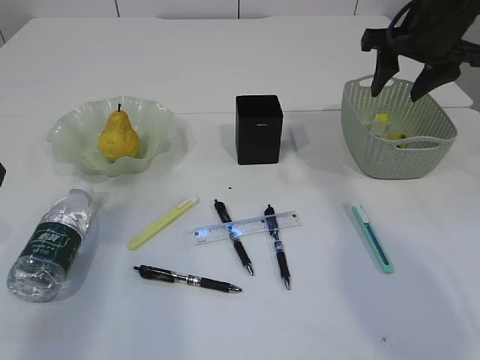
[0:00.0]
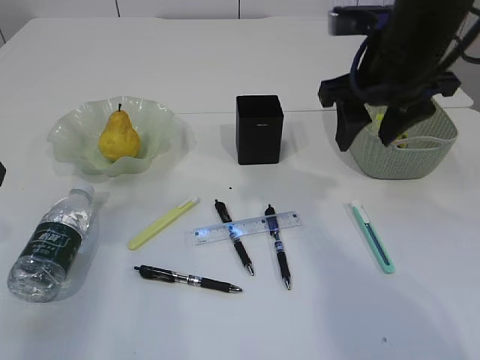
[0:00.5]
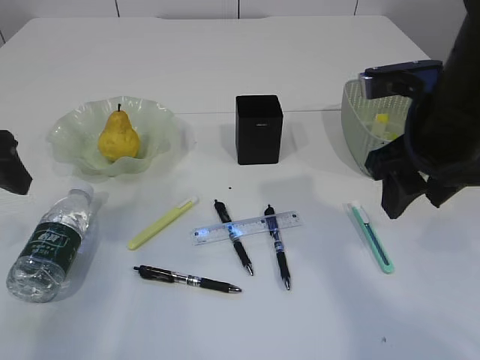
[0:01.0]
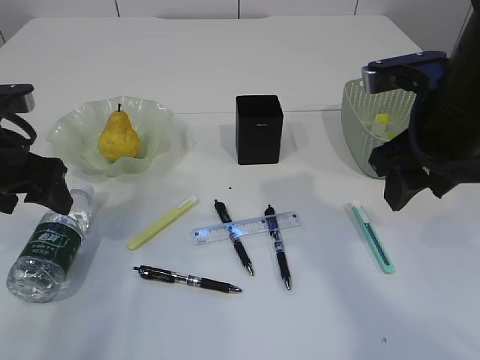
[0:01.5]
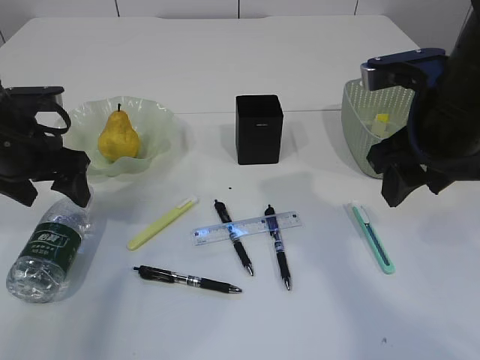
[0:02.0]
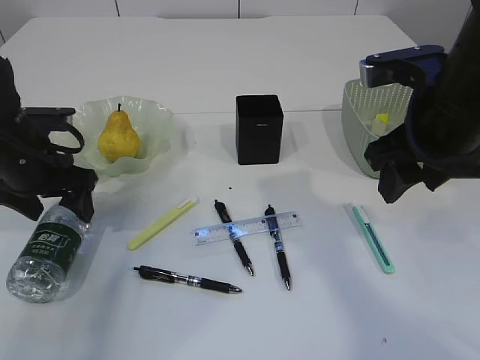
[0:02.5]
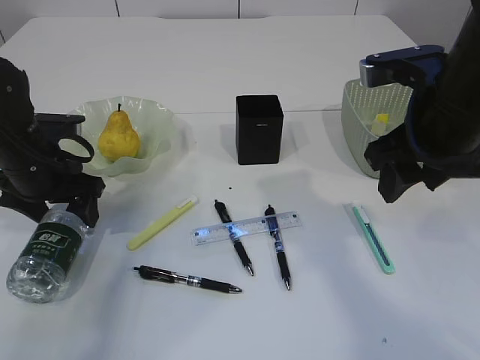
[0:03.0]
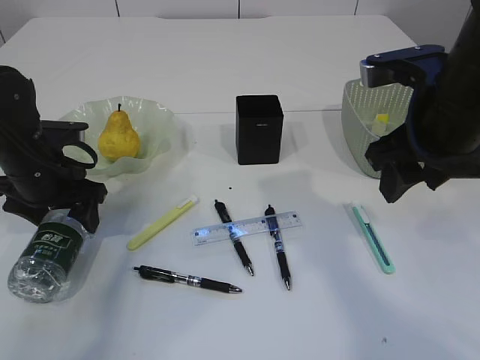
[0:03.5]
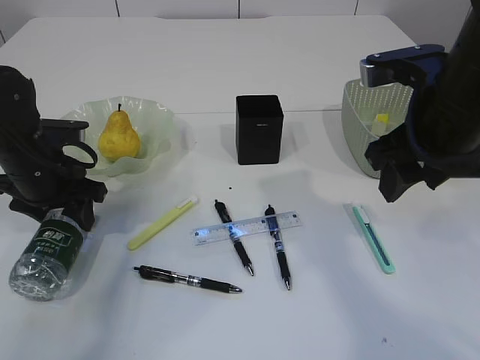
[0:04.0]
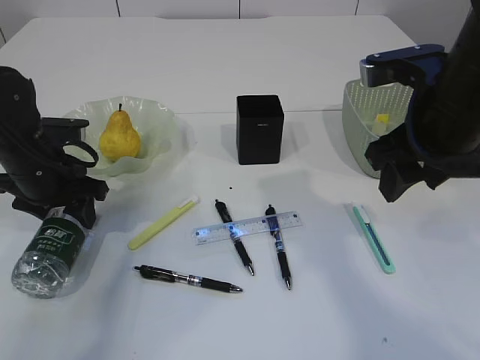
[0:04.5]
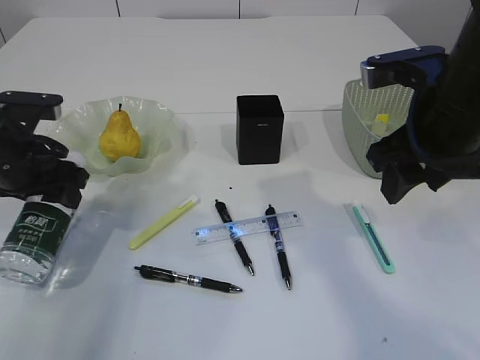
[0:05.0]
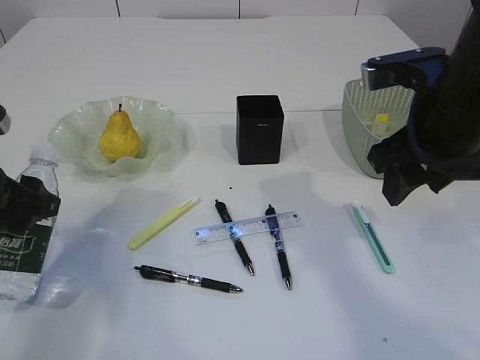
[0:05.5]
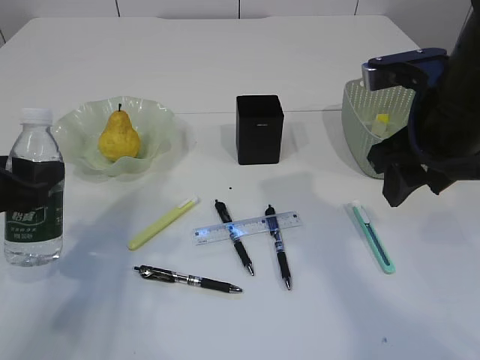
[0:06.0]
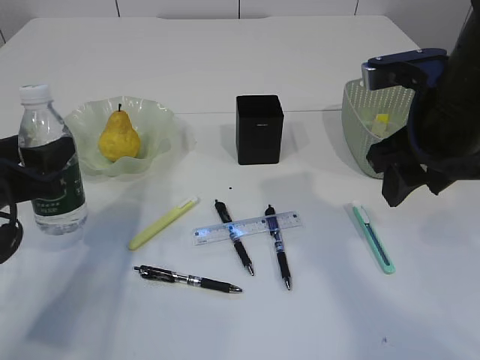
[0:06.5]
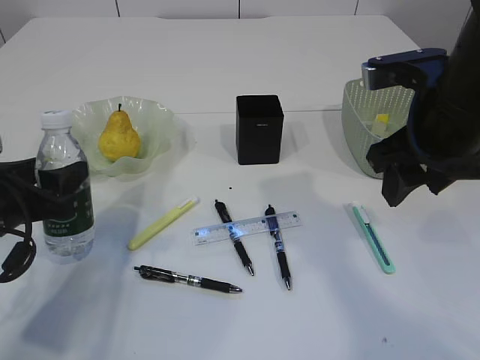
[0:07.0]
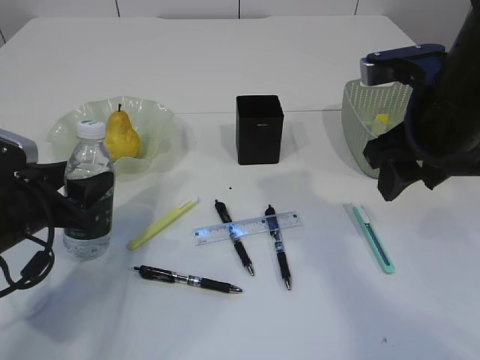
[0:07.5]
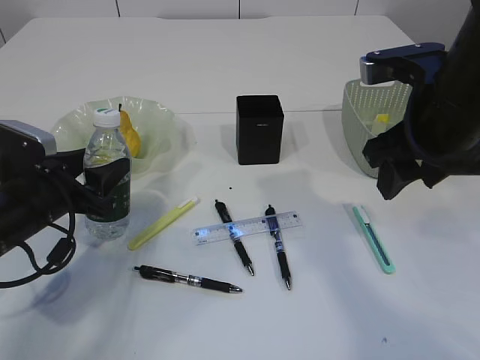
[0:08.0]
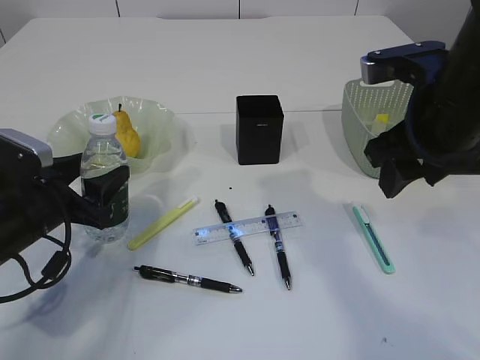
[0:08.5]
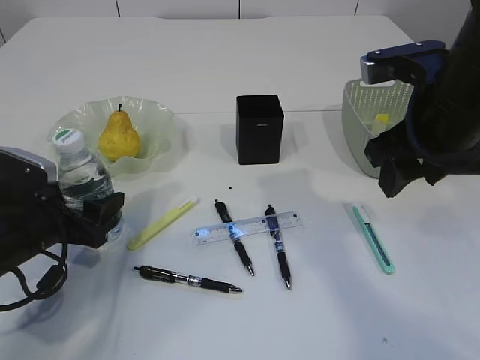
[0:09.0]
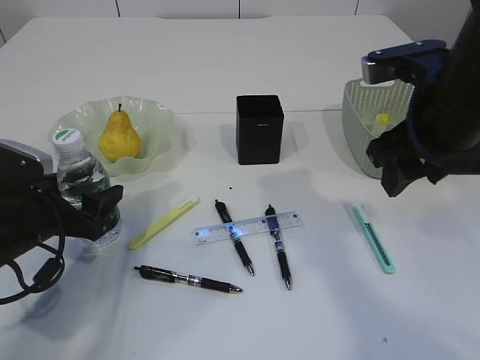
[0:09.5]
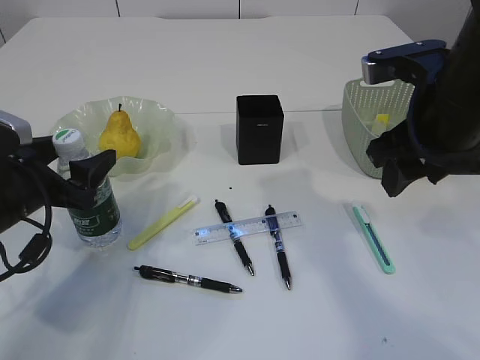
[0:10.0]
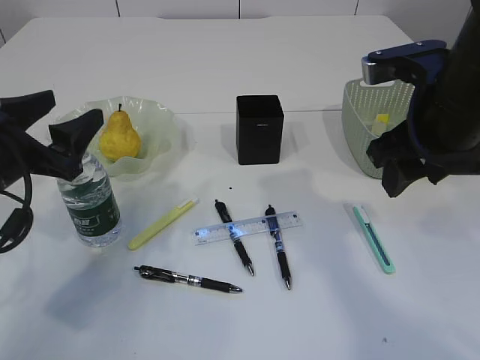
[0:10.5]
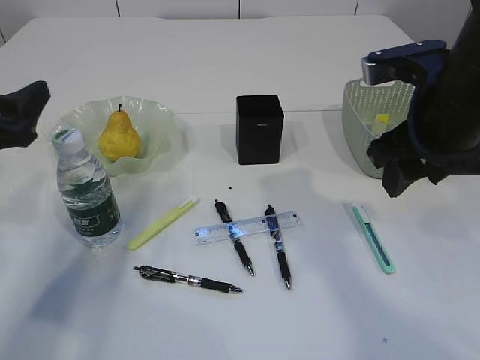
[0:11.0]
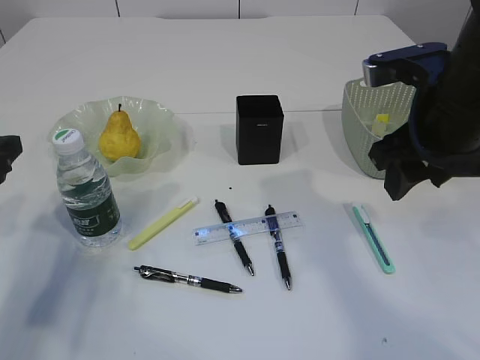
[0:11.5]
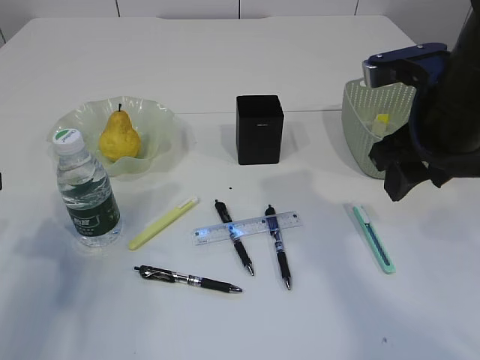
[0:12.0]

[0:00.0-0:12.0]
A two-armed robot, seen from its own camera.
Step, 0:00.0 to 0:05.0: Pick up the bottle with the left arm.
Step, 0:05.5 to 0:10.5: Place the bottle.
0:00.0 to 0:02.0: The left gripper travels forward and downward by roughly 15 cm. Meanwhile the right gripper heads backward, covering about 15 cm.
0:02.0 to 0:04.0: The left gripper heads downward, covering approximately 5 cm, and closes up.
0:04.0 to 0:06.0: The left gripper is displaced backward and upward by roughly 15 cm.
0:06.0 to 0:08.0: The left gripper heads downward and forward, covering approximately 10 cm.
0:08.0 to 0:10.0: The grippers stay close to where they were, moving slightly.
0:10.0 to 0:12.0: The left gripper is displaced upward and to the left by about 10 cm.

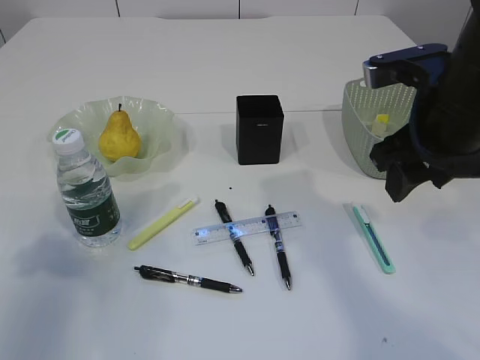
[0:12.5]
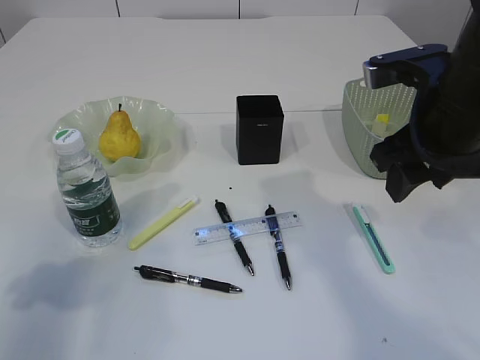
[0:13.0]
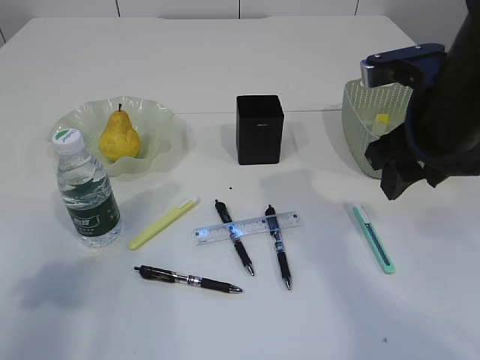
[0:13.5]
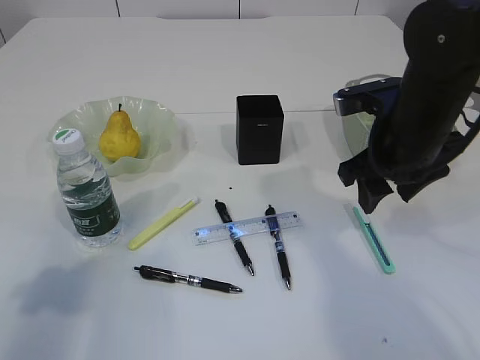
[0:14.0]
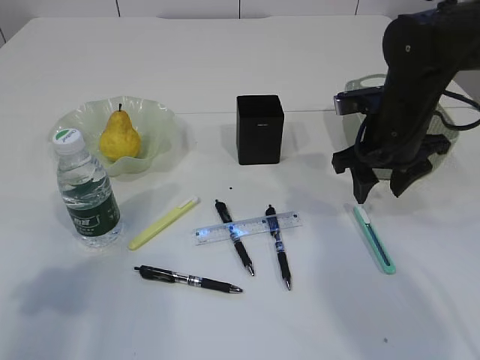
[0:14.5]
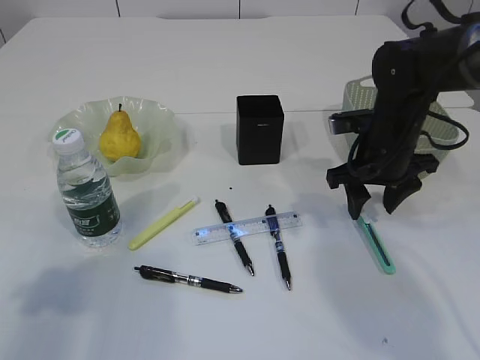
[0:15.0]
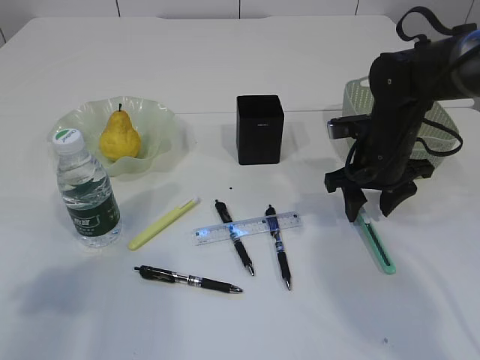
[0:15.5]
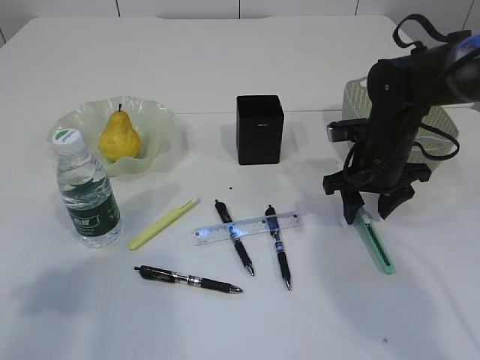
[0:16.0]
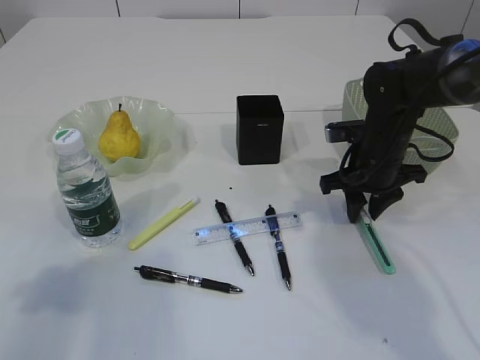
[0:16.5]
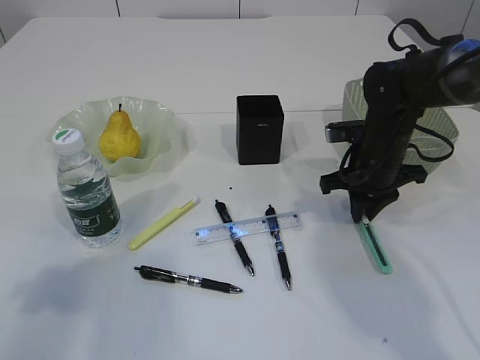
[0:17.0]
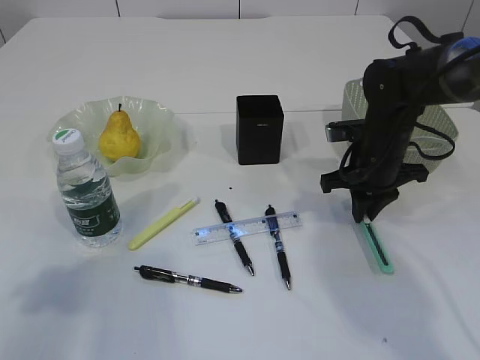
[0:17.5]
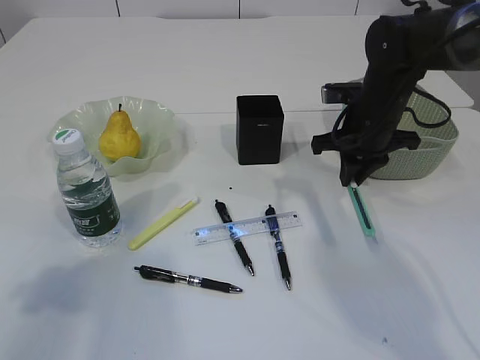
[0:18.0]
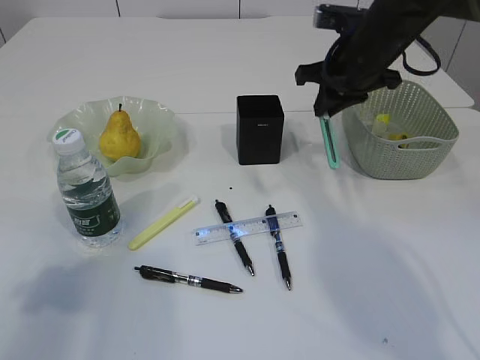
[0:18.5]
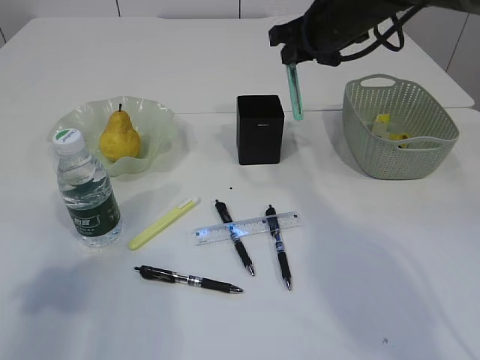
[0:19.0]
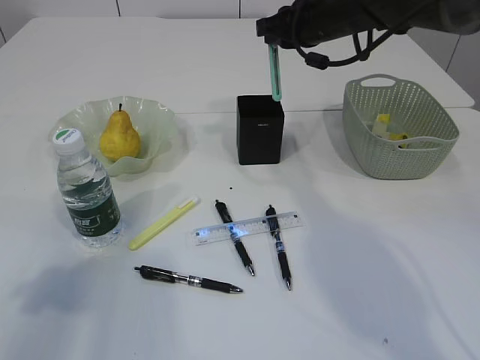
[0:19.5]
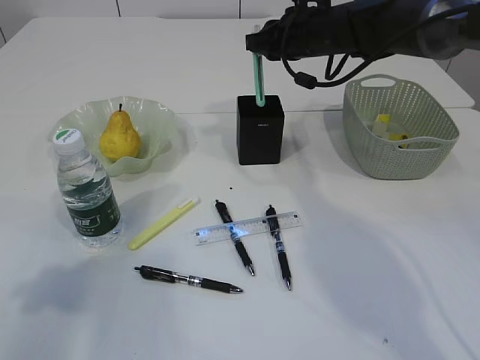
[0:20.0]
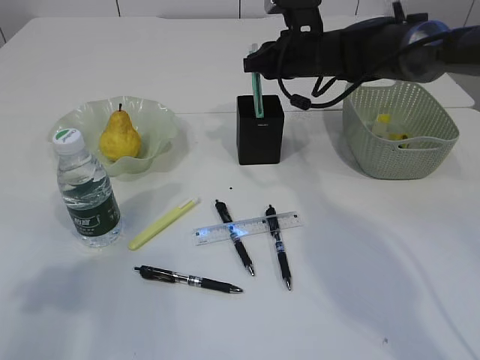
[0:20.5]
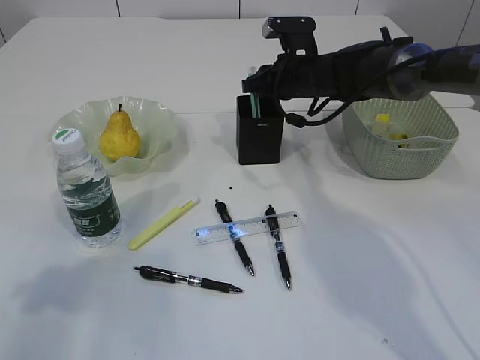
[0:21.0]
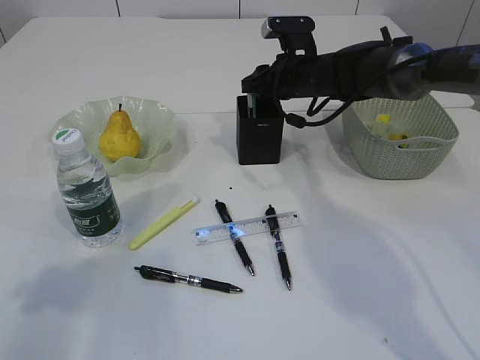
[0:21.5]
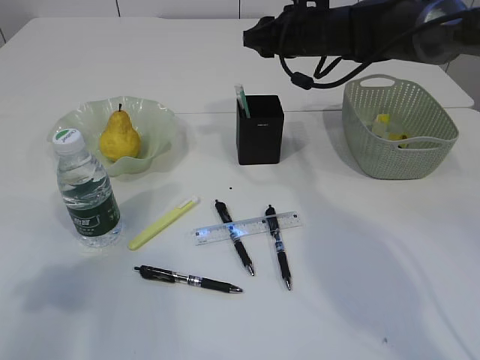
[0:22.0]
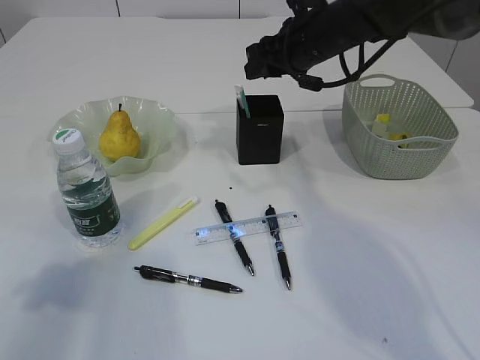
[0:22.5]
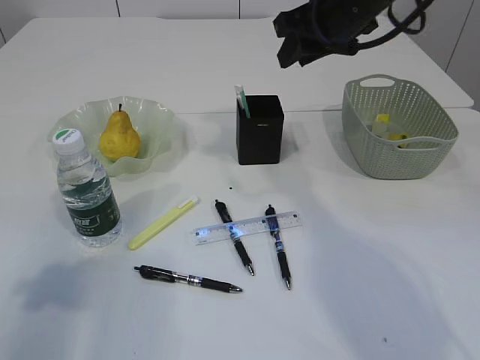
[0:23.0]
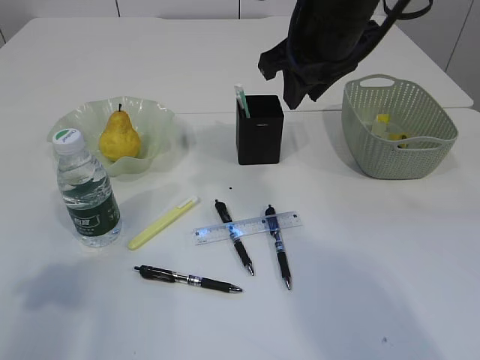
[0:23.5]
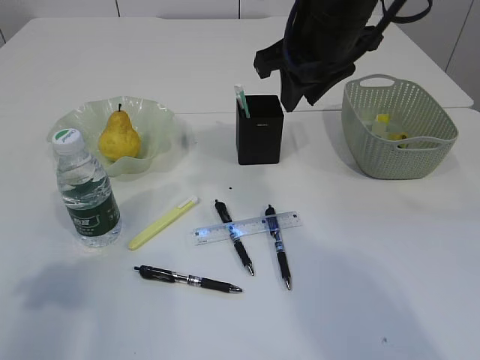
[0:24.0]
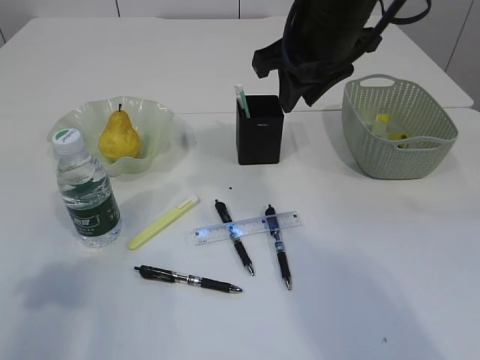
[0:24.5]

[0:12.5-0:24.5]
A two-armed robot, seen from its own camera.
Step, 0:12.5 to 0:17.5: pick up the blue knife.
Step, 0:18.0 to 0:21.5: Place the blue knife into the pen holder.
0:12.5 to 0:14.5: The right gripper heads forward and downward, covering about 10 cm.
0:14.5 to 0:16.5: The right gripper moves downward, roughly 5 cm.
0:16.5 to 0:18.5: The right gripper heads upward, covering some 10 cm.
0:18.5 to 0:20.5: The right gripper heads forward and to the left, covering approximately 10 cm.
0:20.5 to 0:22.5: The right gripper shifts by approximately 5 cm.
0:22.5 to 0:24.5: The right gripper travels backward and upward by approximately 10 cm.

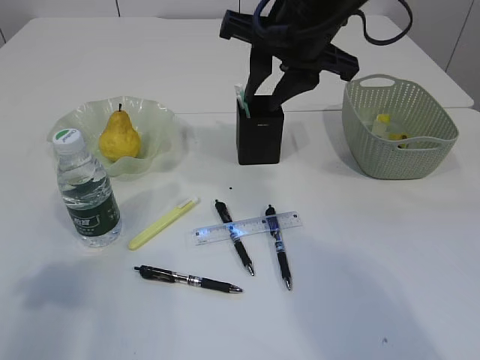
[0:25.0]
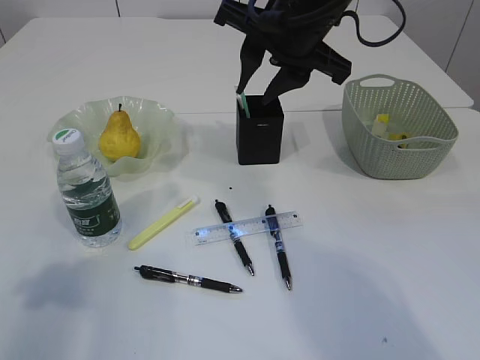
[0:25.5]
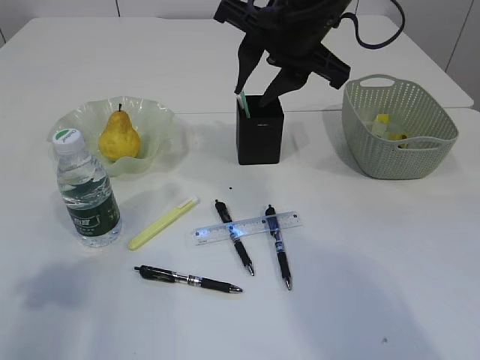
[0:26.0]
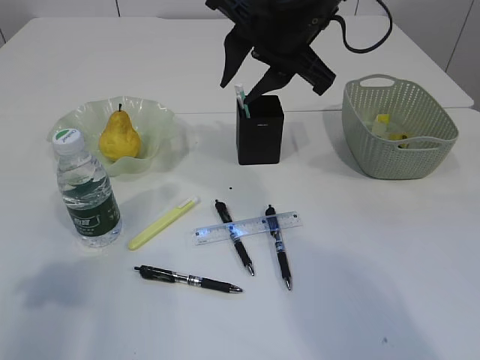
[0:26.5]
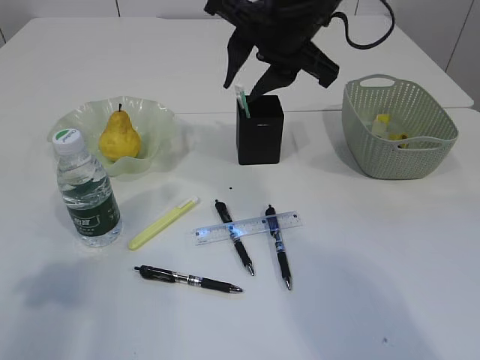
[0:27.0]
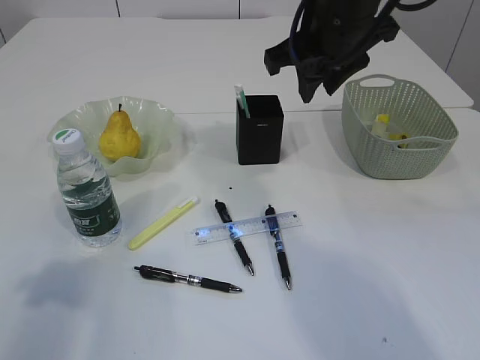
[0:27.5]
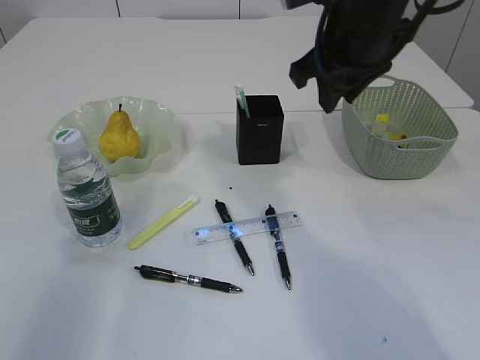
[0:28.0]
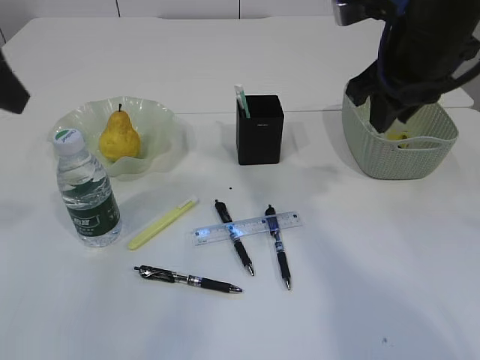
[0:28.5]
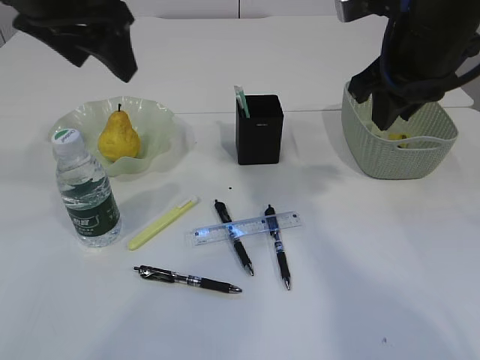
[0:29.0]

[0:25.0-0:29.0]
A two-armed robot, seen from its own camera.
0:27.0 to 0:29.0: The left gripper moves forward, to the right and upward, approximately 25 cm. Meanwhile the right gripper moves to the right, approximately 10 cm.
